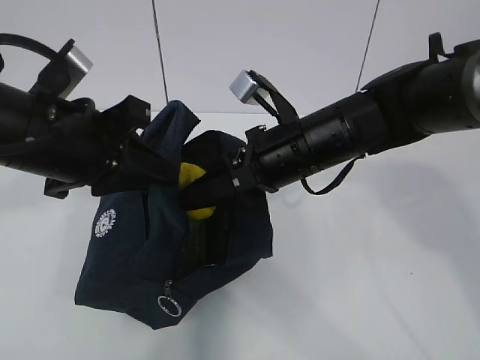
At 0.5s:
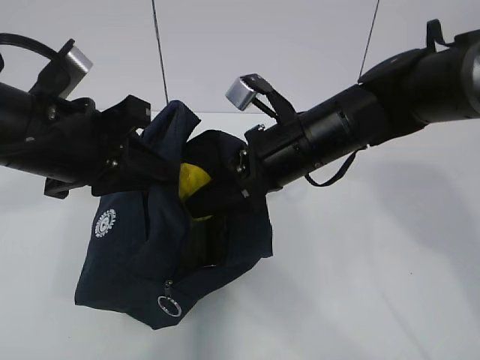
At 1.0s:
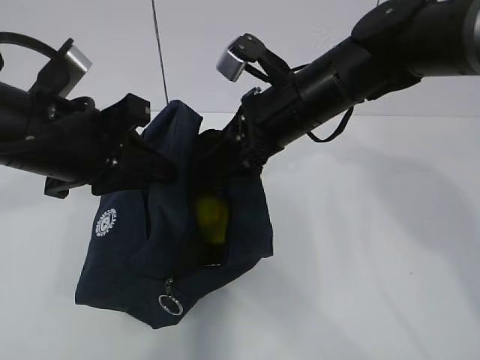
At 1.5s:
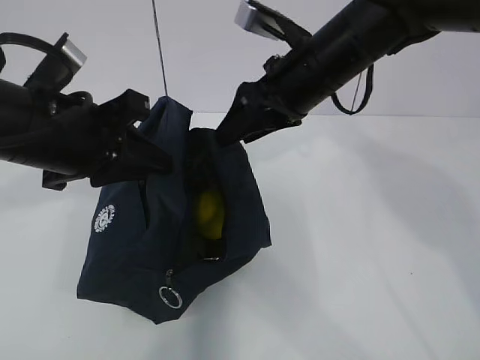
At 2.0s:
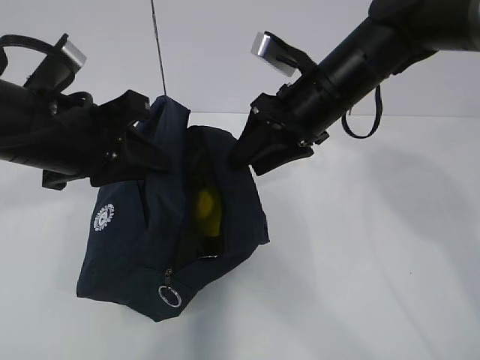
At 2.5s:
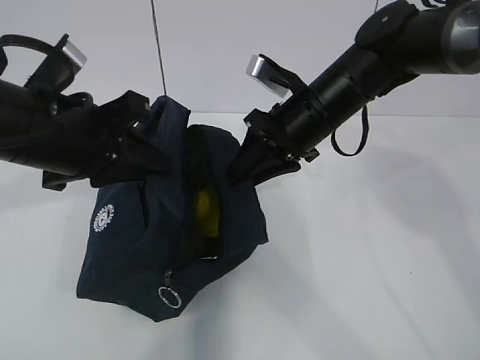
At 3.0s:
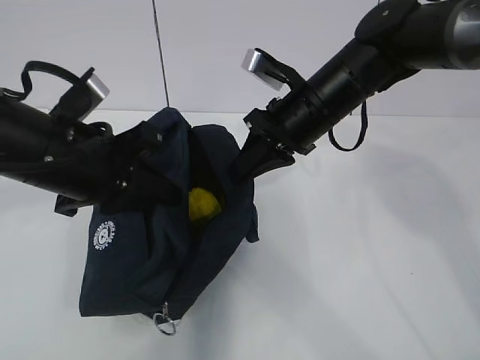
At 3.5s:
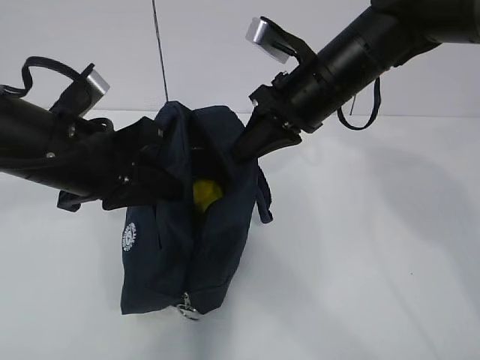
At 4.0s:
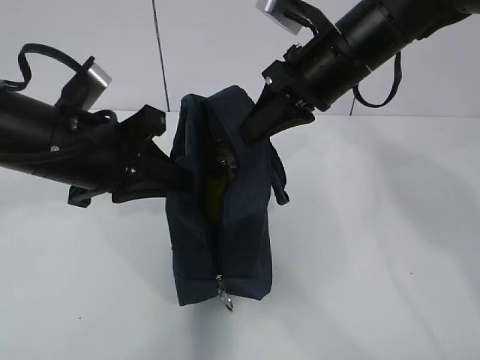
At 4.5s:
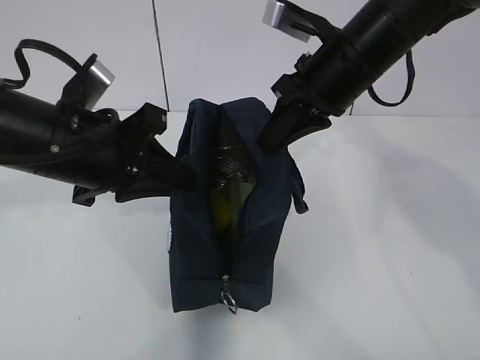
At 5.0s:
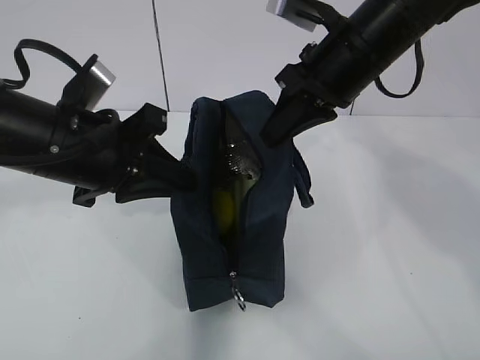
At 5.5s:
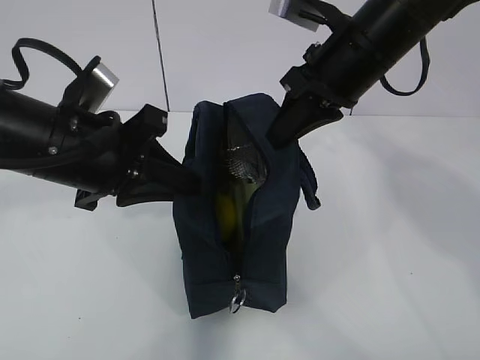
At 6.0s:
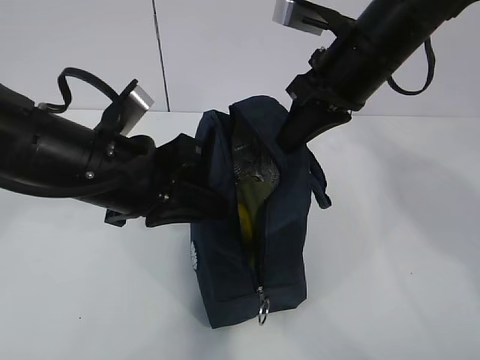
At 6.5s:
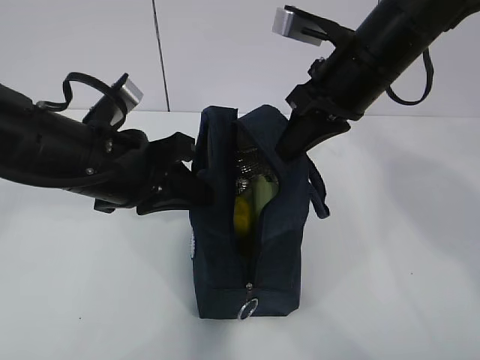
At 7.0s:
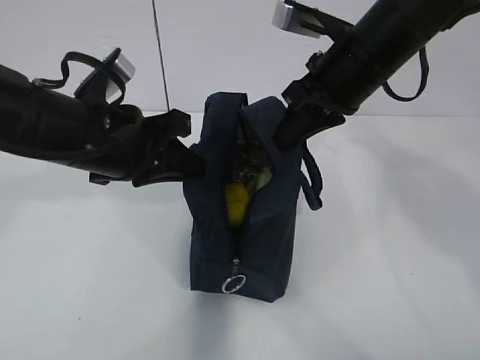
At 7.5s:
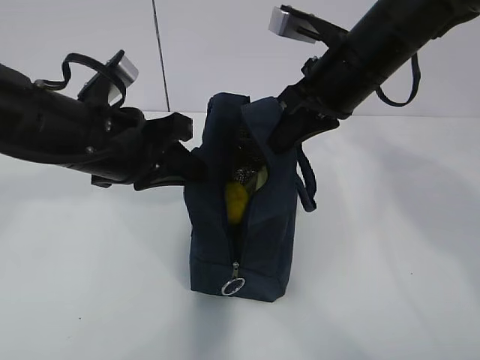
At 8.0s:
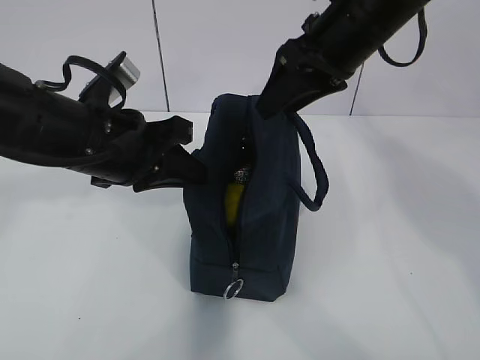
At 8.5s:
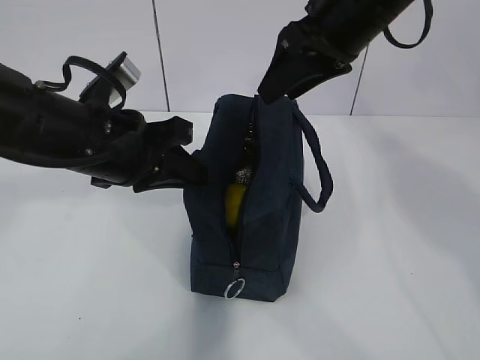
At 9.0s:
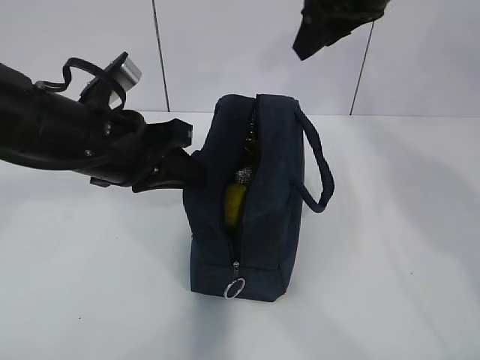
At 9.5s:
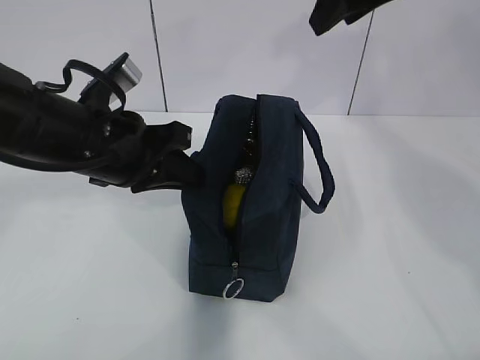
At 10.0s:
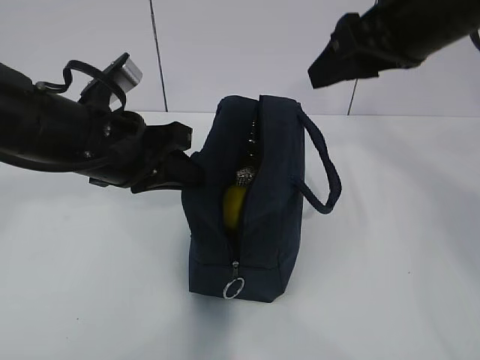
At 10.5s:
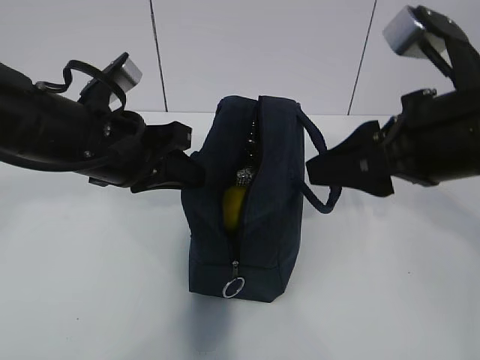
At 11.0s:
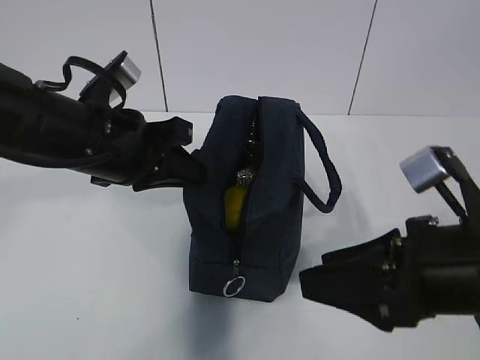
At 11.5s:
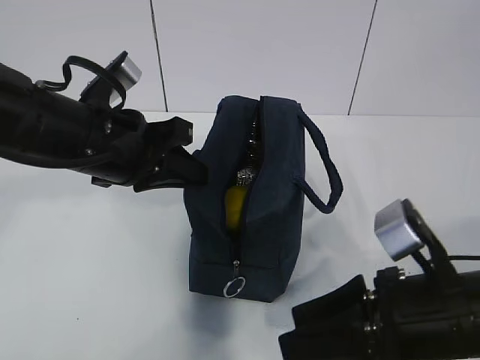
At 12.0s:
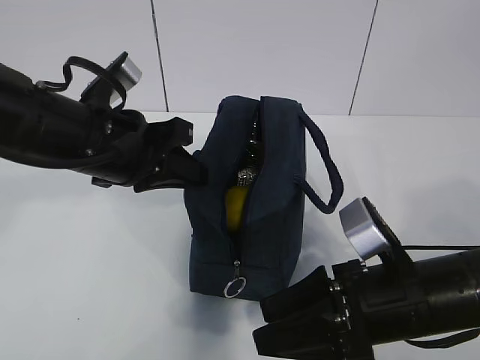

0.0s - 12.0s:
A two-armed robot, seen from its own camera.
0.0s - 2.0s: The right gripper changes place by approximately 5 cm.
2.0s - 4.0s: The right gripper closes.
6.0s - 8.0s: The right gripper opens its fingers.
8.0s - 10.0s: The right gripper moves backward, some 5 cm.
10.0s - 12.0s: The right gripper is displaced downward and backward by approximately 25 cm.

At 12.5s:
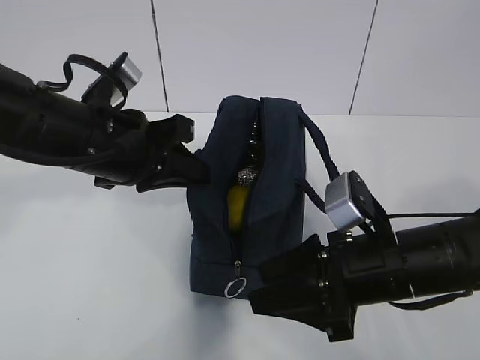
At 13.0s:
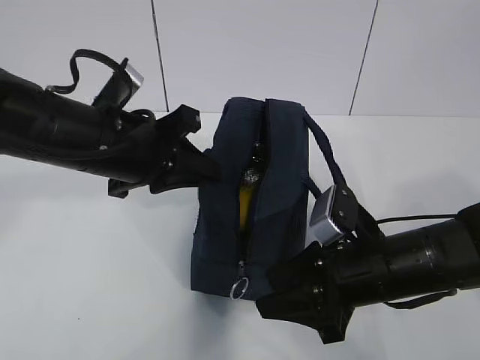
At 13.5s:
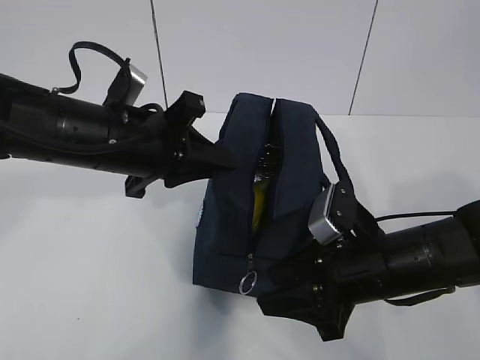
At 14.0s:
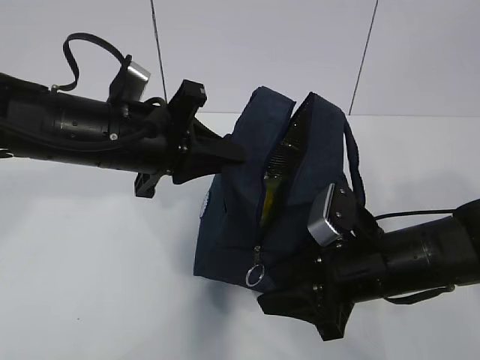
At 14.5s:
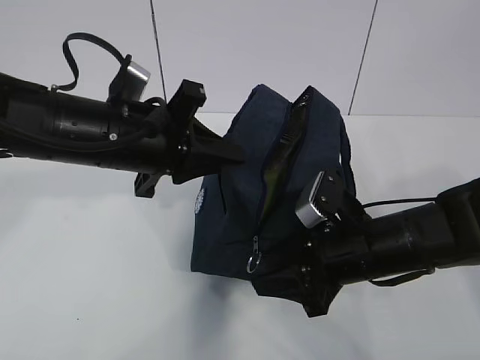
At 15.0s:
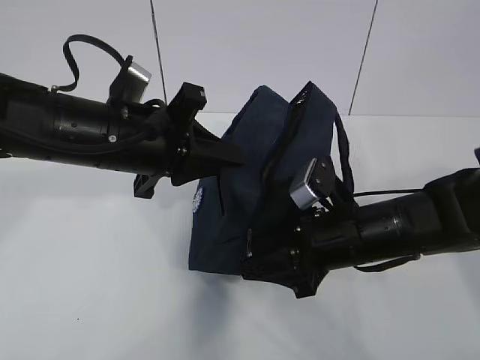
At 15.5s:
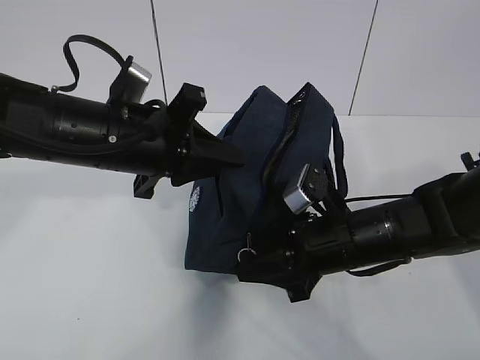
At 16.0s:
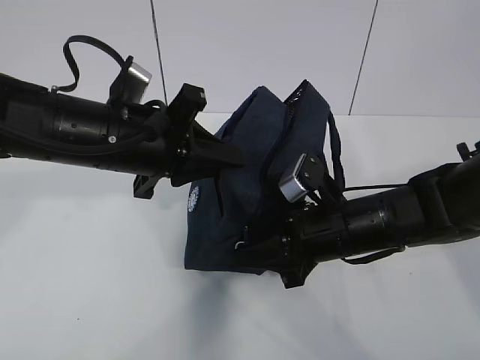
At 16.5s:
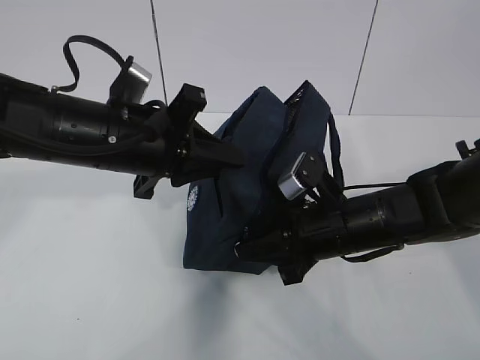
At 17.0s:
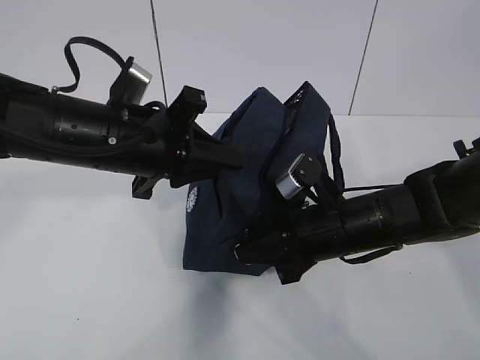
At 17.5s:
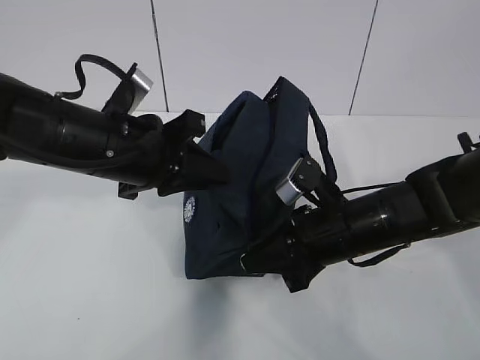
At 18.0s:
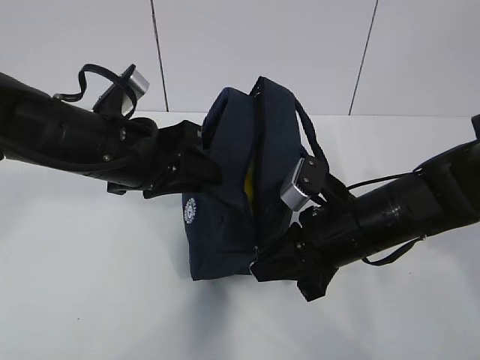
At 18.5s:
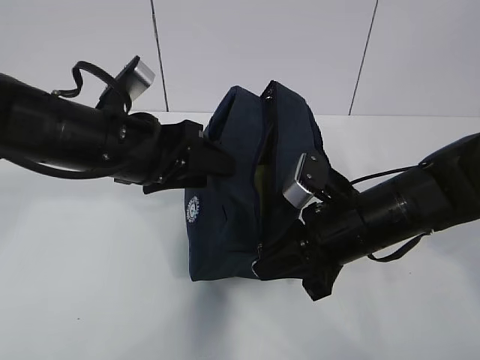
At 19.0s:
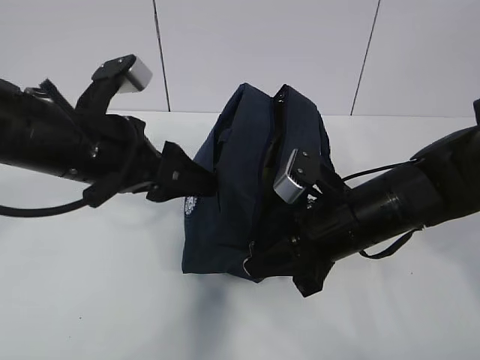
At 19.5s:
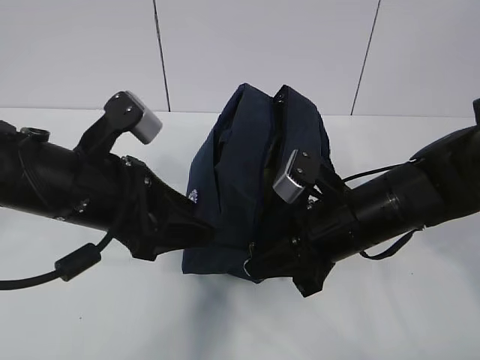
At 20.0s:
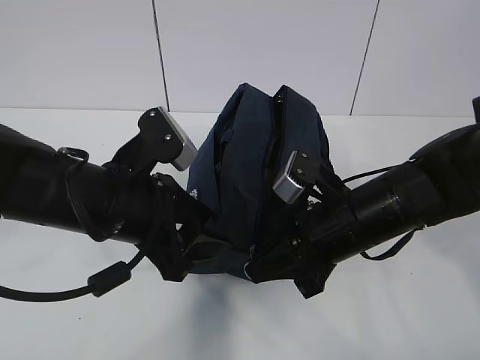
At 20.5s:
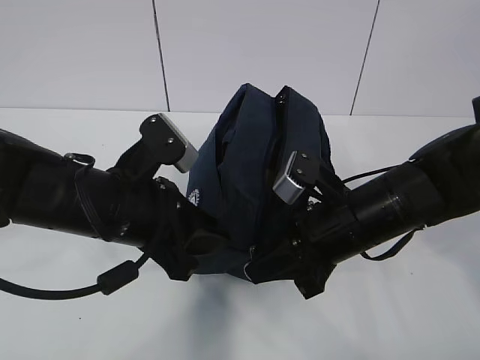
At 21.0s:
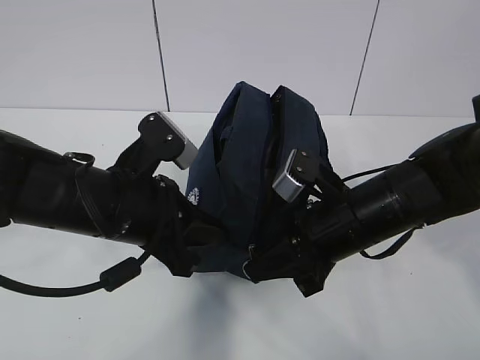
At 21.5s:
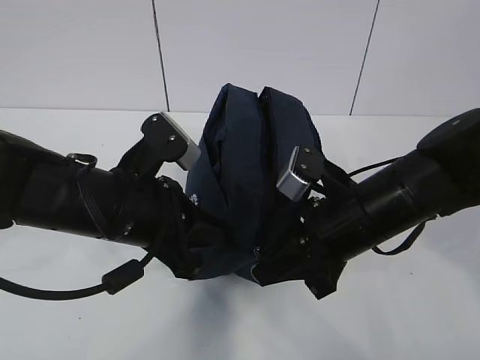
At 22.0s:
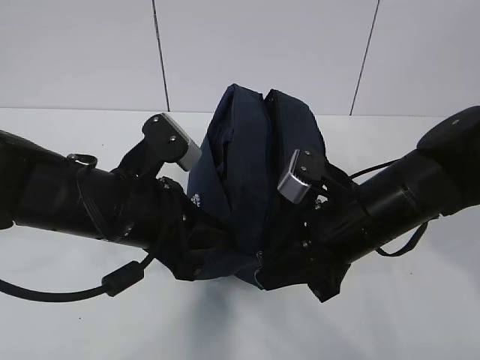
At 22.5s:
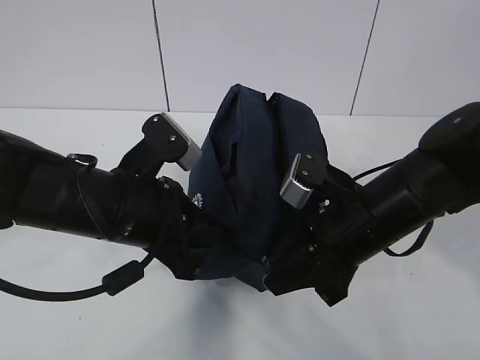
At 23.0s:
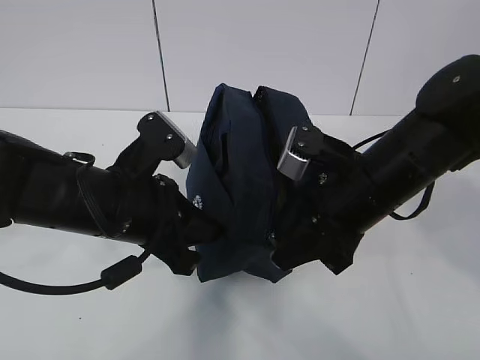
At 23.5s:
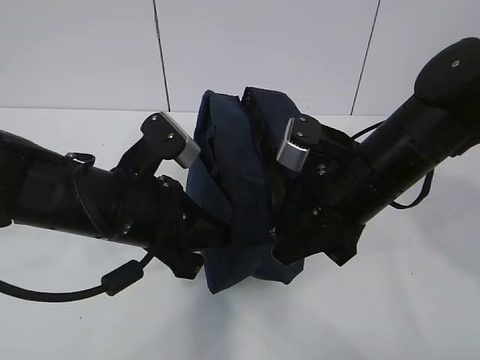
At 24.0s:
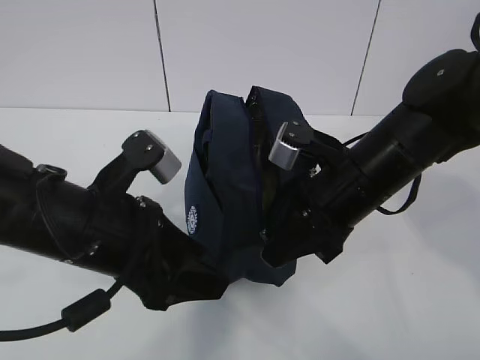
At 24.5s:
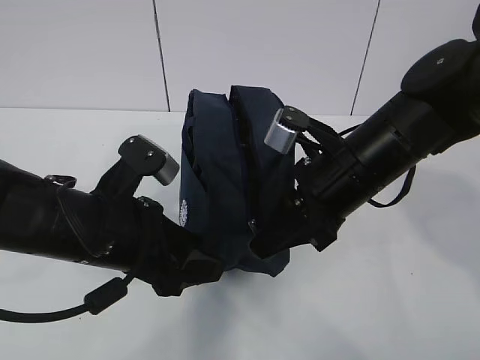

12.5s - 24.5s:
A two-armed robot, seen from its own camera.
12.5s - 14.5s: The right gripper shifts by approximately 5 cm.
14.5s - 16.5s: The right gripper closes.
16.5s - 18.5s: The left gripper opens its fingers.
18.5s - 20.5s: The left gripper ends up some 5 cm from where it was.
20.5s - 22.5s: The left gripper closes its fingers.
22.5s - 24.5s: The left gripper opens its fingers.

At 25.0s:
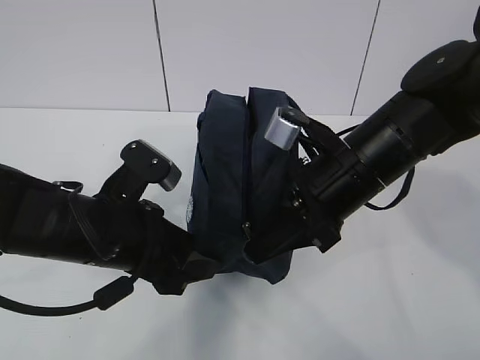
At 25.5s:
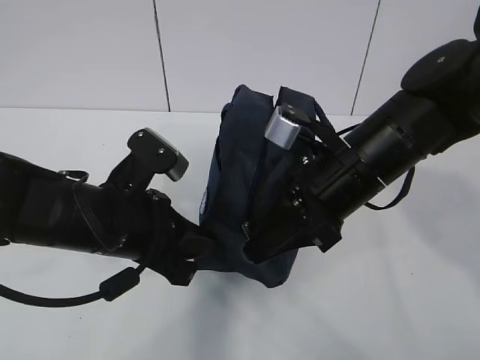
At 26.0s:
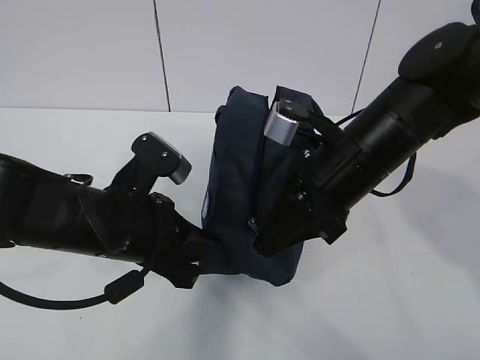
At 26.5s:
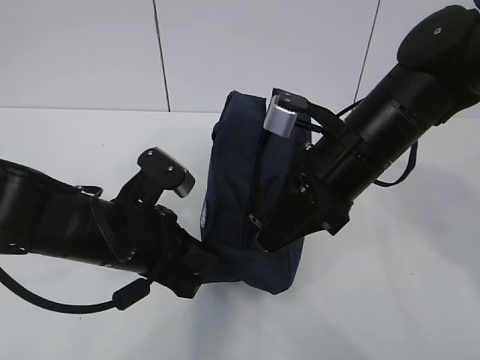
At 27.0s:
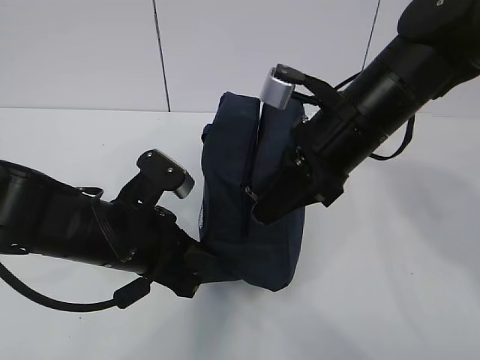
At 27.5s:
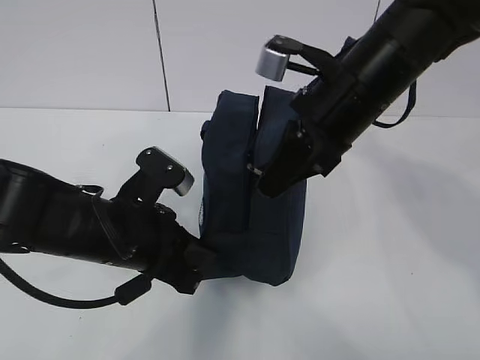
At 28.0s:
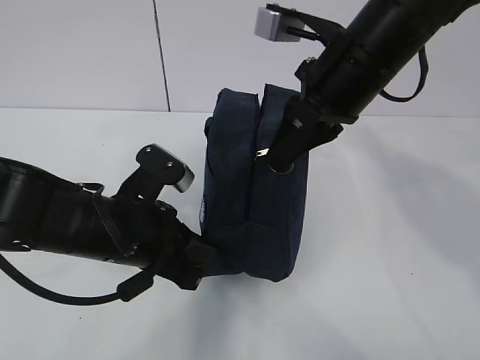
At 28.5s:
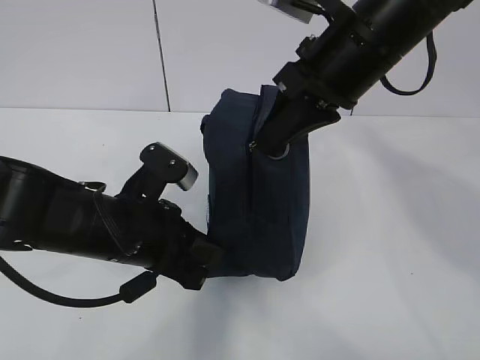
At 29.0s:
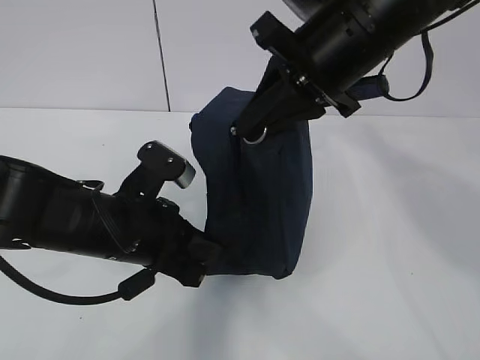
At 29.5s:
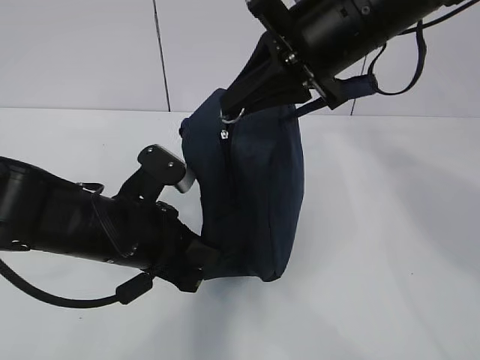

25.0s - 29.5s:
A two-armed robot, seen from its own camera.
25.0s - 27.0s: The left gripper closes.
27.0s - 29.5s: The right gripper goes approximately 10 cm upward.
